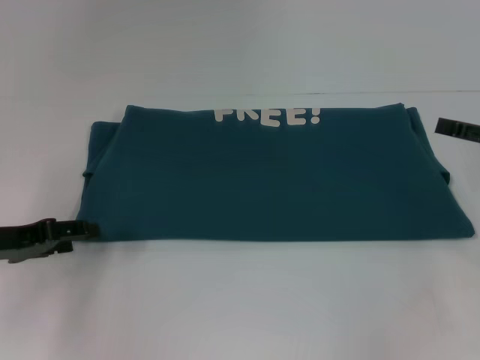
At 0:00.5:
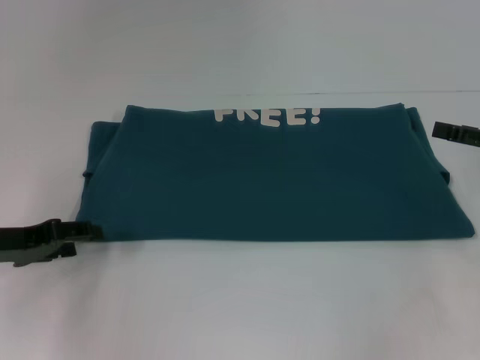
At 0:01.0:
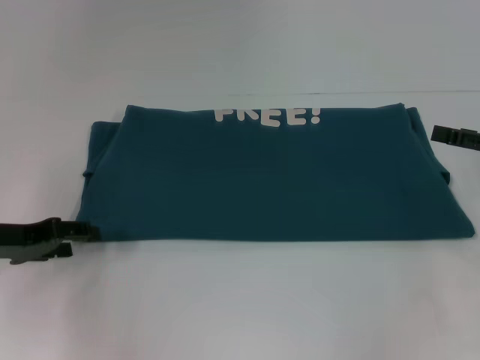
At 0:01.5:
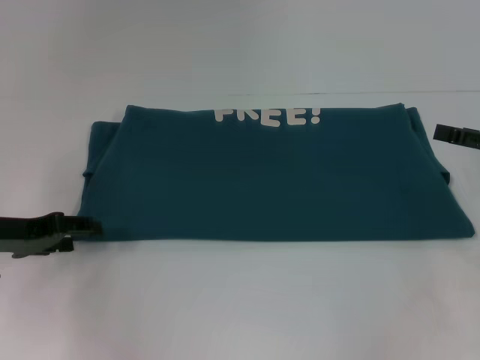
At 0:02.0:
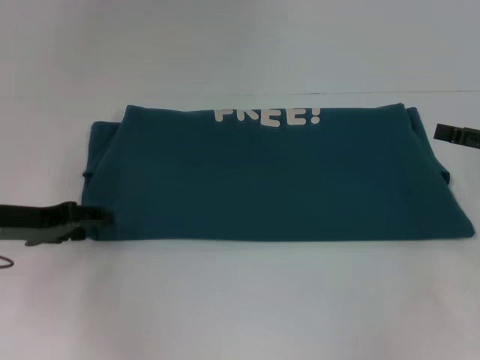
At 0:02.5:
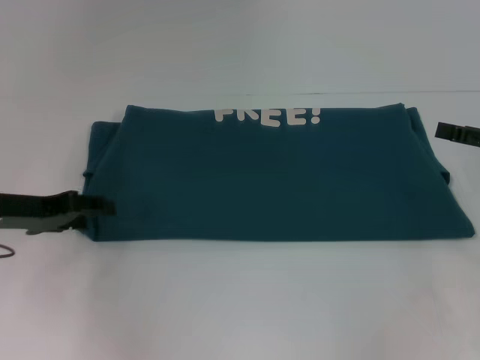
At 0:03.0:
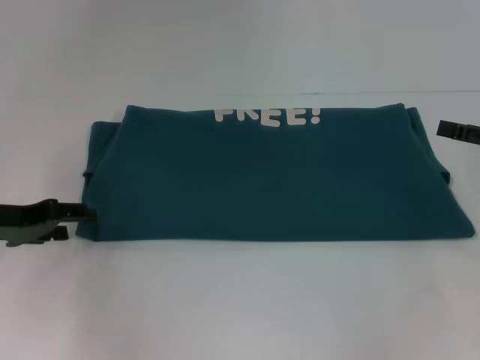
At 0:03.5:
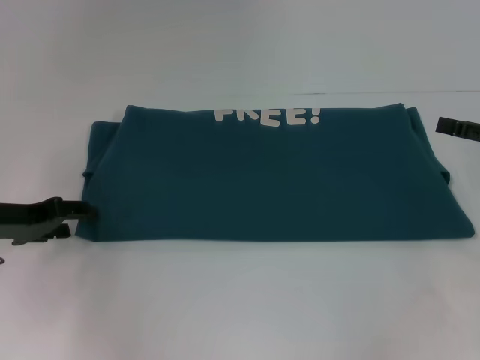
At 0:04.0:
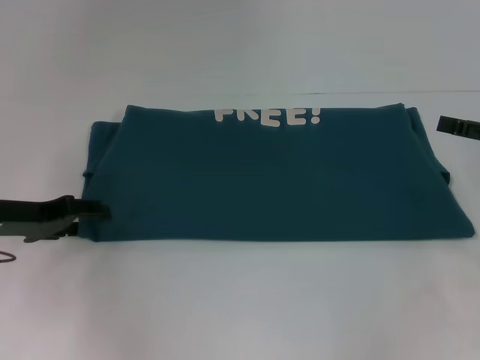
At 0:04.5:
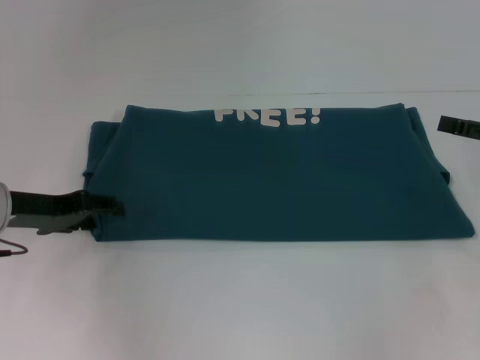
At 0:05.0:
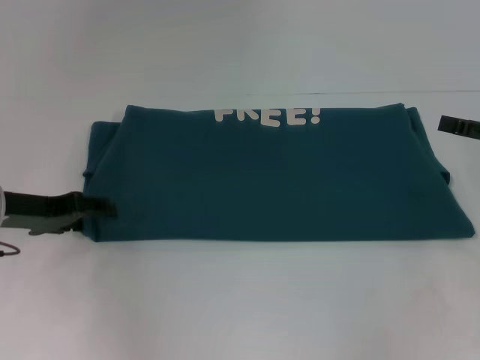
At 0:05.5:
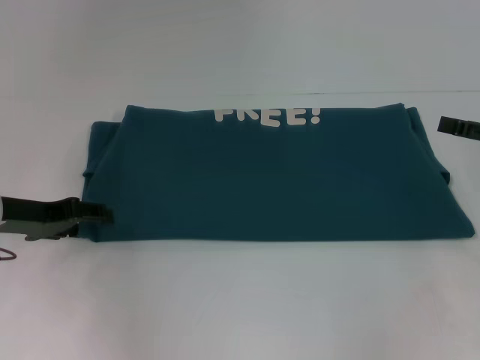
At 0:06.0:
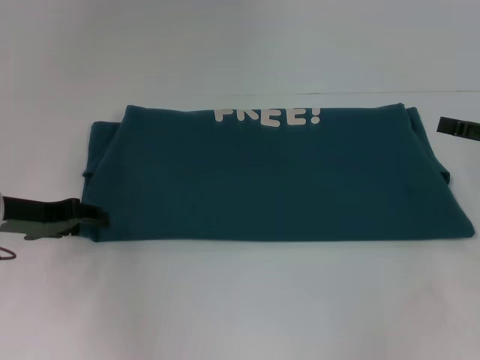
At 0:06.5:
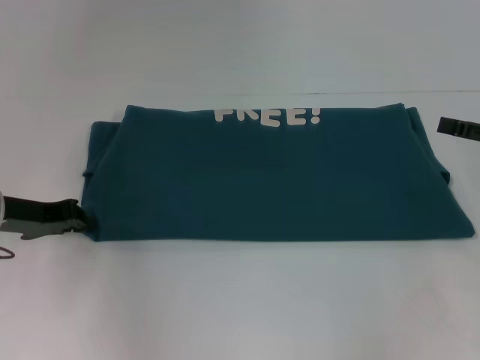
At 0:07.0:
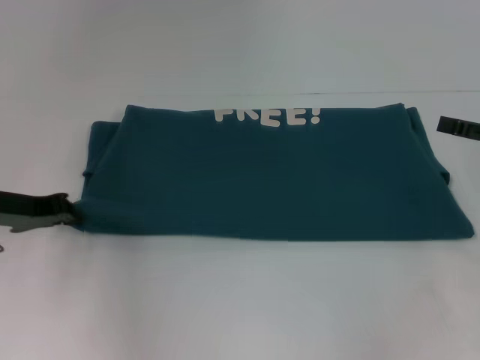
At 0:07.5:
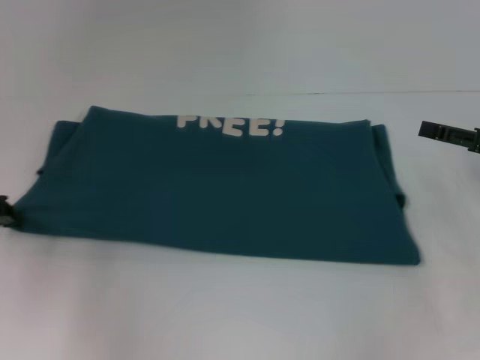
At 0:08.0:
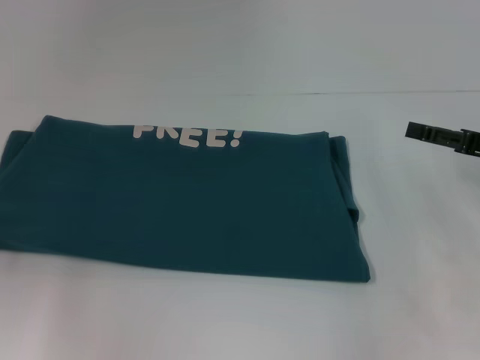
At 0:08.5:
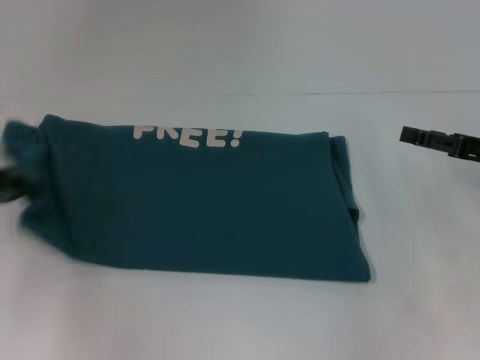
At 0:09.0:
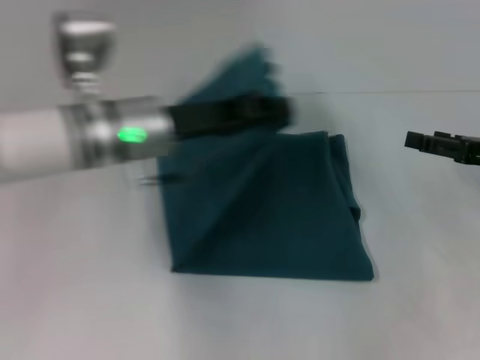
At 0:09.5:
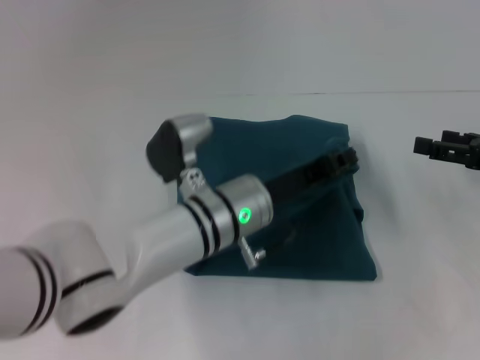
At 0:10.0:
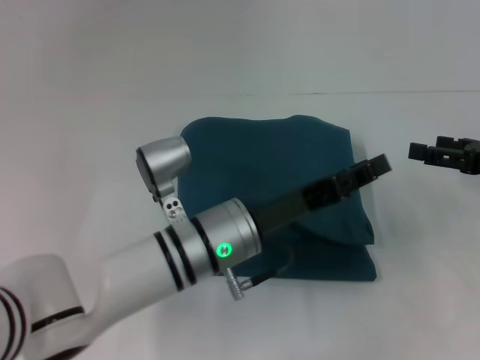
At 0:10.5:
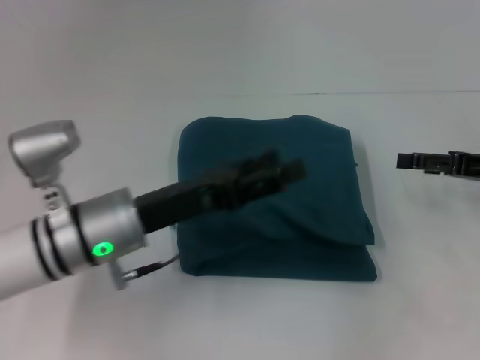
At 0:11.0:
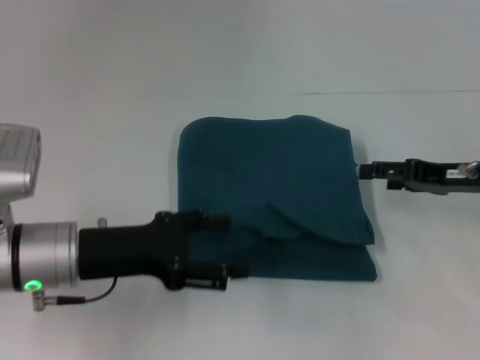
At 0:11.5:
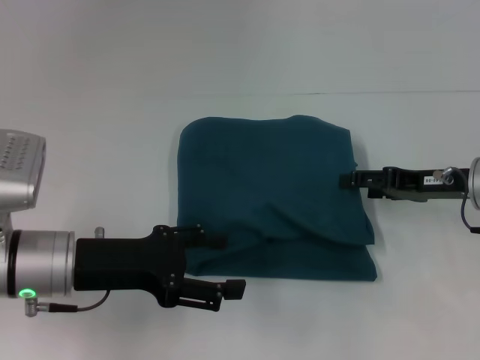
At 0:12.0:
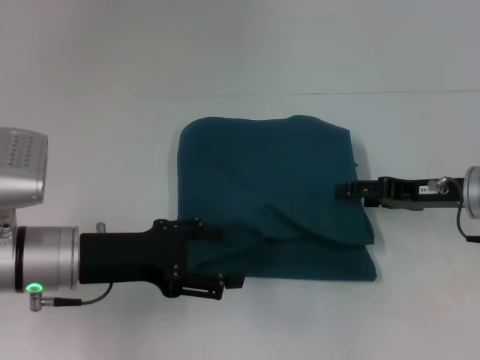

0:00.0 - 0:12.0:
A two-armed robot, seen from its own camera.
Step, 0:00.0 - 0:09.5: Fold the clothes to the left.
0:00.0 - 0:04.0: The grippers stay close to where they were, moving slightly.
0:06.0 - 0:08.0: The left gripper is displaced to the left by roughly 10 cm, and closes up.
0:08.0 - 0:10.0: The left gripper travels to the right by approximately 35 cm.
0:10.0 - 0:12.0: The right gripper heads to the left, covering about 5 cm. The left gripper travels to the left by about 15 cm, and opens up.

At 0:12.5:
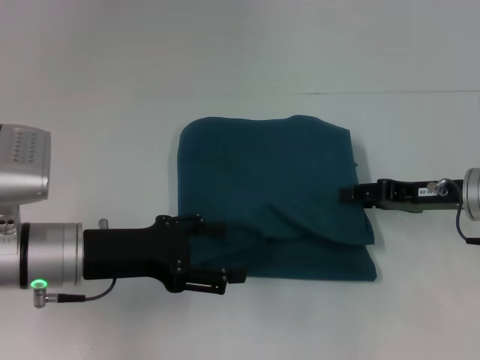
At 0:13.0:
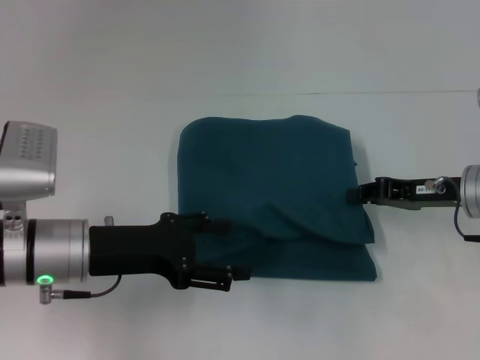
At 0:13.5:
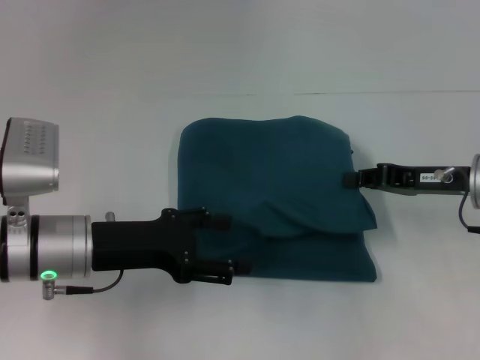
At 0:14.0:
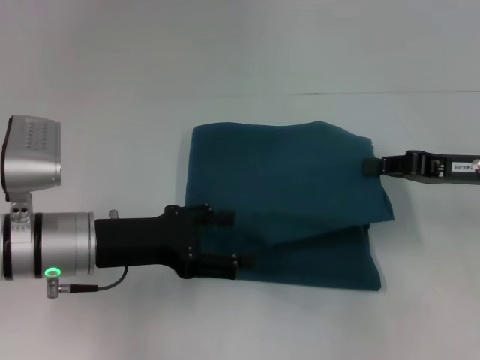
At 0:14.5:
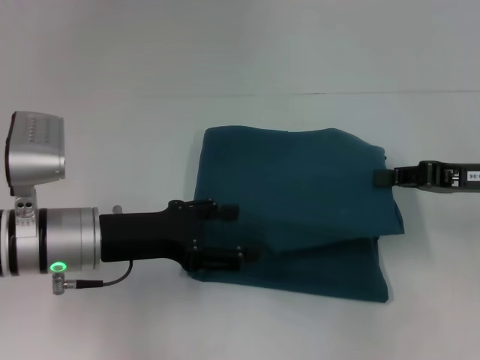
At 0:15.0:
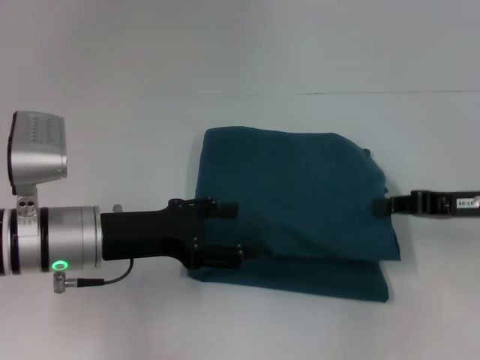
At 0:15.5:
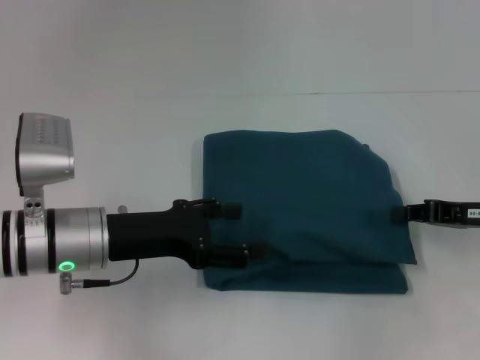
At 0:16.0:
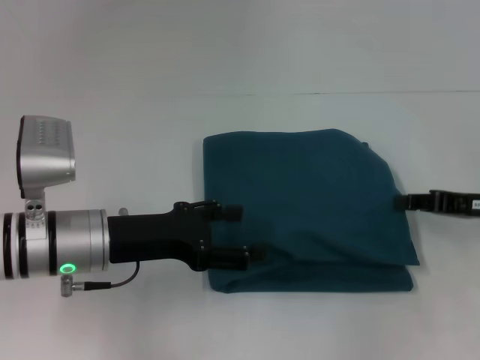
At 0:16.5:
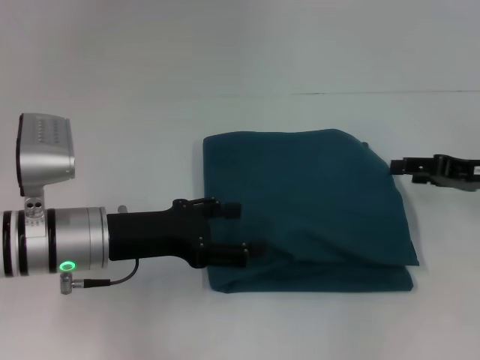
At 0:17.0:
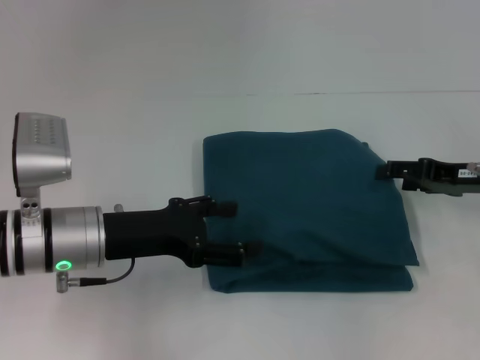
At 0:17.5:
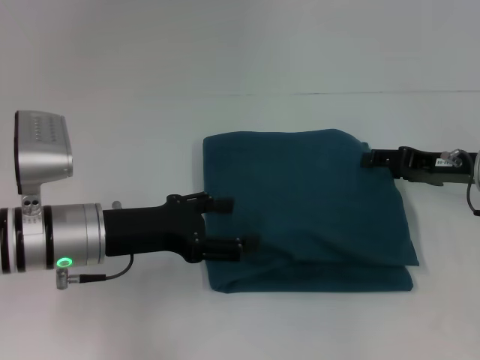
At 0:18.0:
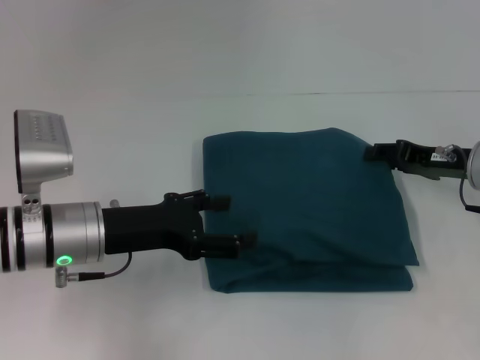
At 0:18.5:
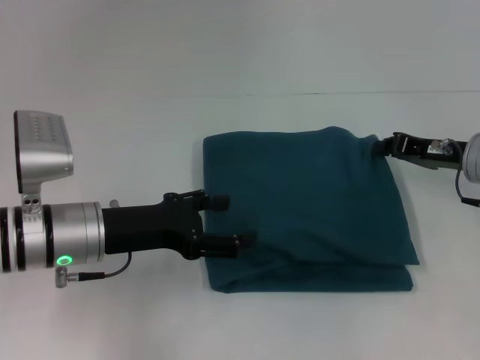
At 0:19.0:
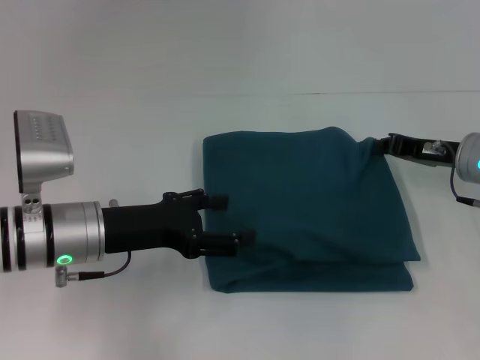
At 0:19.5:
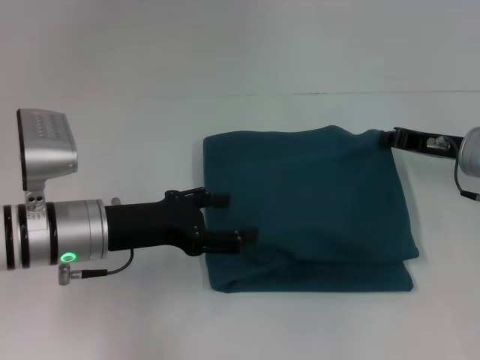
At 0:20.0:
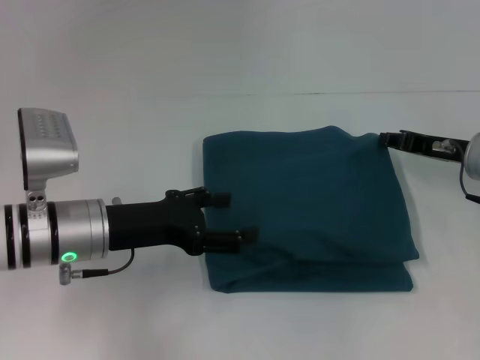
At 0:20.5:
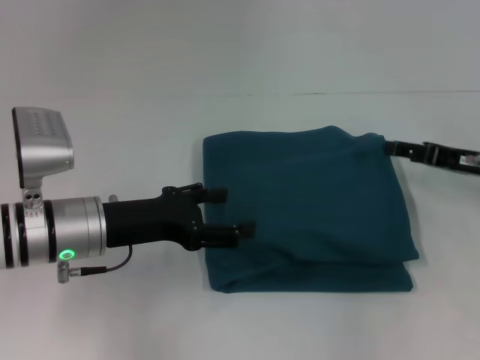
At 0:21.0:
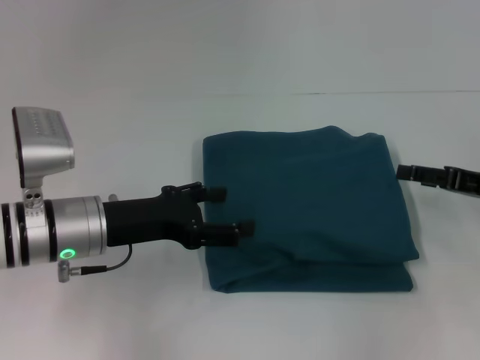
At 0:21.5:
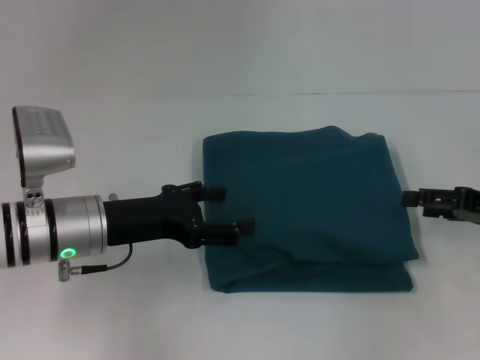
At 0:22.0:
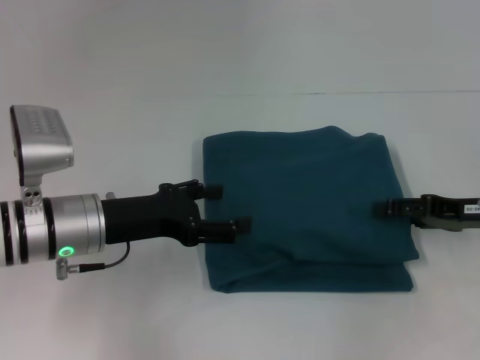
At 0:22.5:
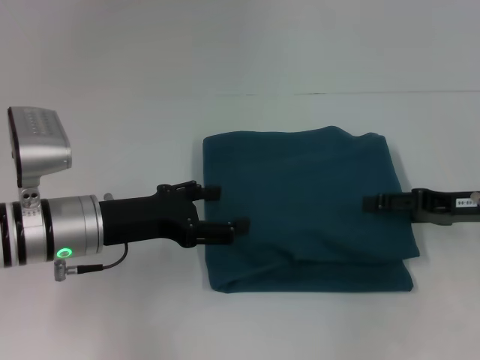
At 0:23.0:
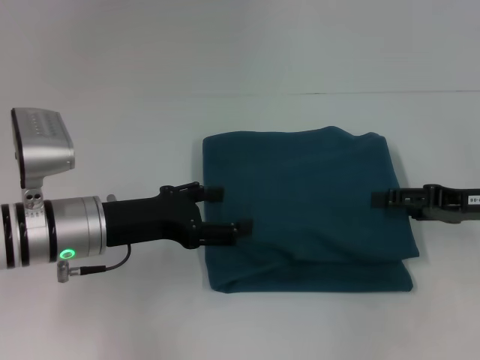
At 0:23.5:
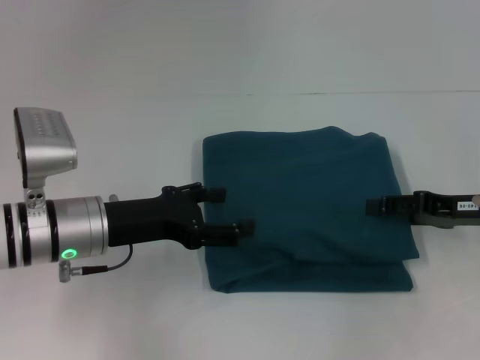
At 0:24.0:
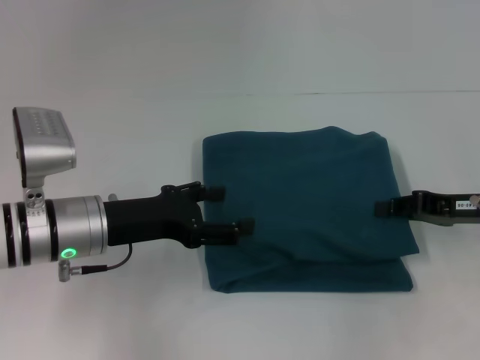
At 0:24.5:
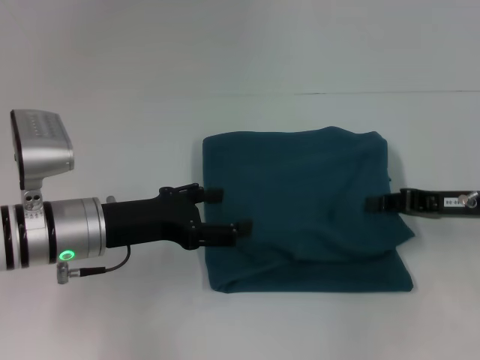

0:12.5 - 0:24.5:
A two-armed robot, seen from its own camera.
0:12.5 - 0:14.5: The right gripper shifts by some 5 cm, and closes its fingers.
0:14.5 - 0:16.5: The right gripper opens its fingers.
0:16.5 - 0:18.5: The right gripper shifts by roughly 5 cm, and opens and closes again.
0:18.5 - 0:20.5: The right gripper opens its fingers.
0:22.5 - 0:24.5: The right gripper closes its fingers.

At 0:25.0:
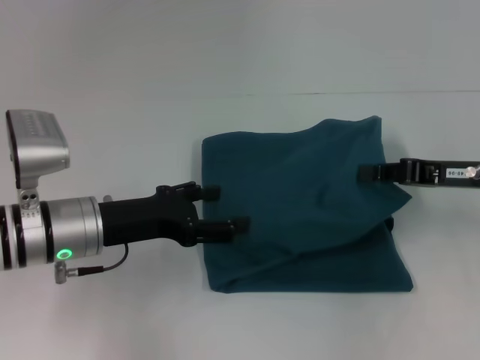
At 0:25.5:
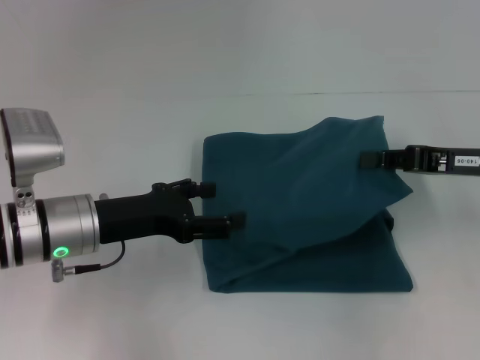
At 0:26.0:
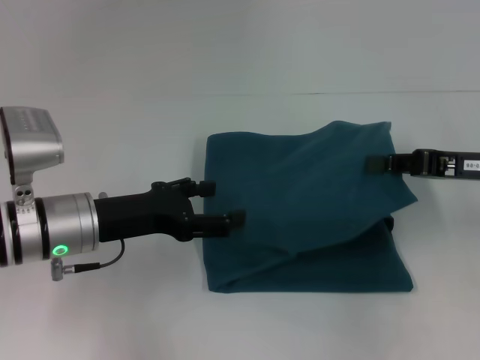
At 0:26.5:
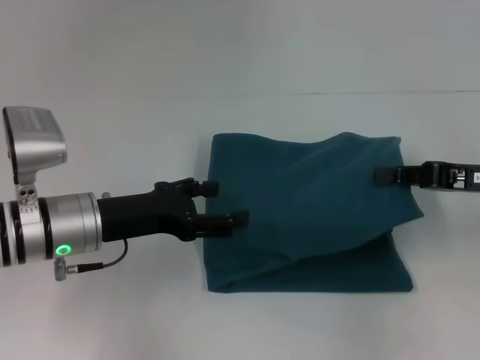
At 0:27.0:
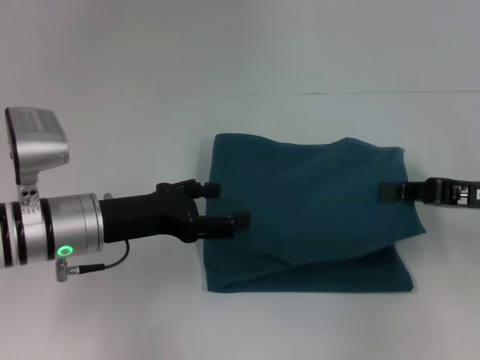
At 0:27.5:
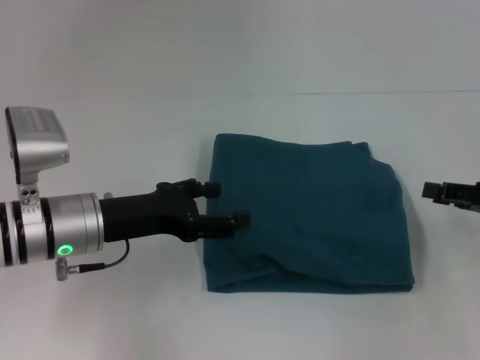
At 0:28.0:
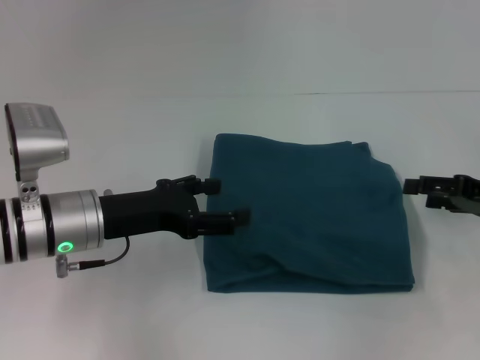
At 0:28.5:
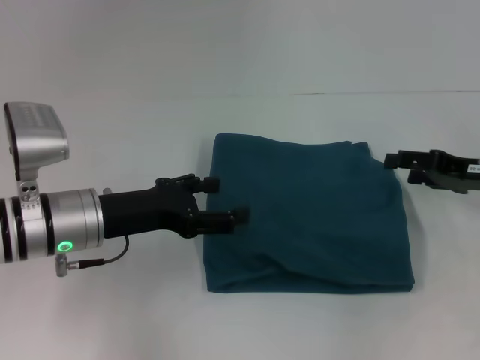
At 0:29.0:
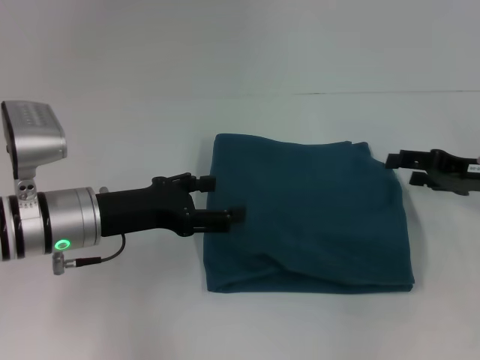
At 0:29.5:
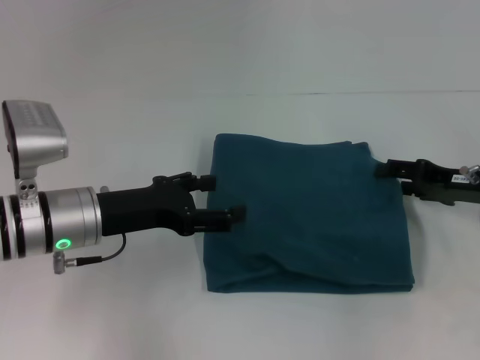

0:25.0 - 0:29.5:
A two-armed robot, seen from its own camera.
0:25.0 - 0:27.0: The grippers make only small movements.
0:27.0 - 0:29.5: The right gripper shifts by approximately 5 cm, and opens up.
